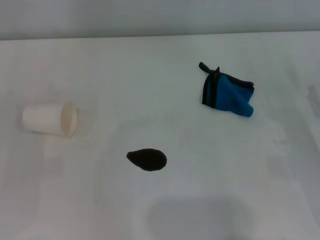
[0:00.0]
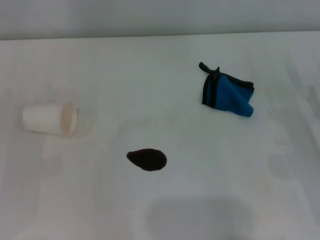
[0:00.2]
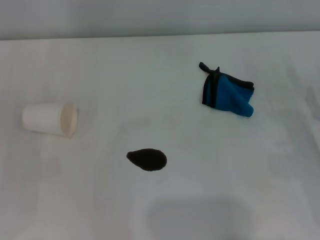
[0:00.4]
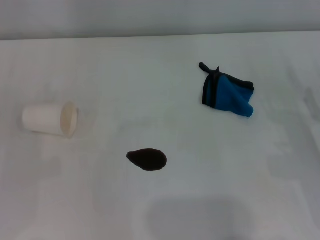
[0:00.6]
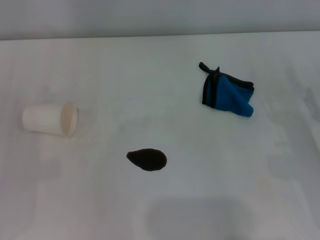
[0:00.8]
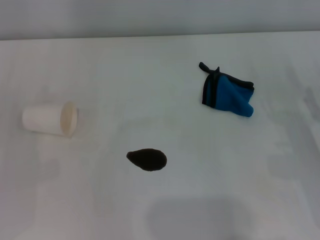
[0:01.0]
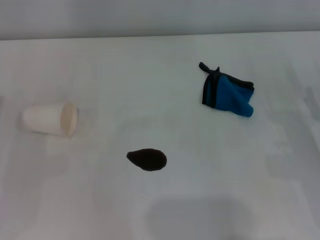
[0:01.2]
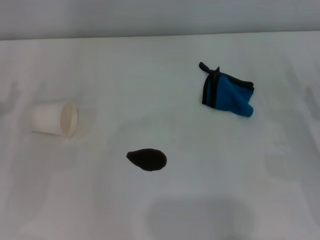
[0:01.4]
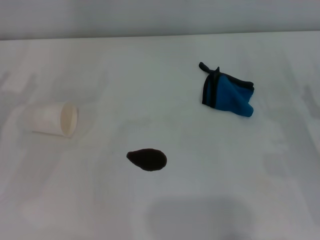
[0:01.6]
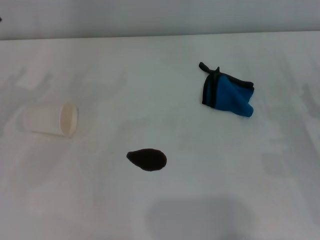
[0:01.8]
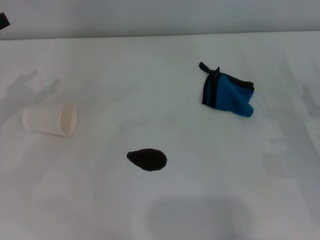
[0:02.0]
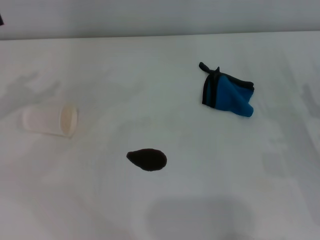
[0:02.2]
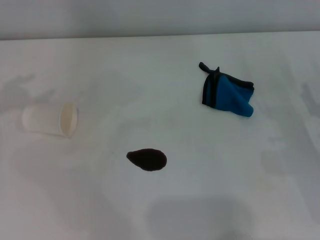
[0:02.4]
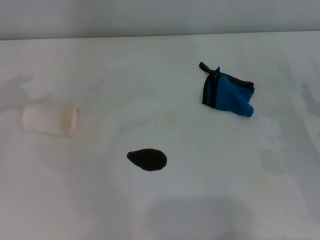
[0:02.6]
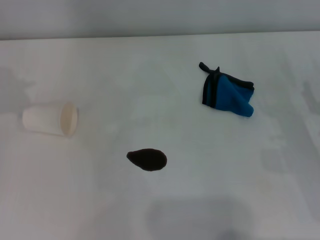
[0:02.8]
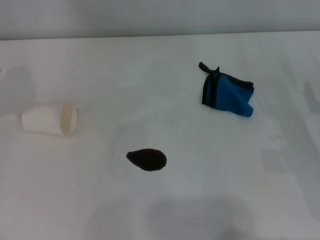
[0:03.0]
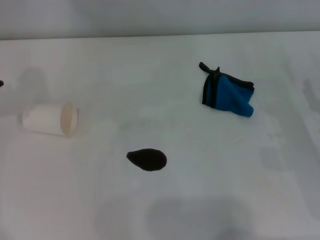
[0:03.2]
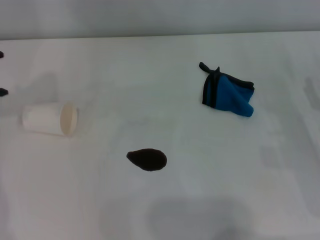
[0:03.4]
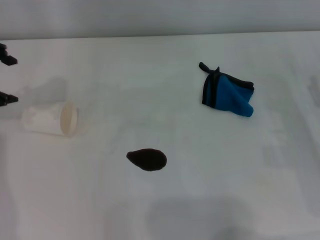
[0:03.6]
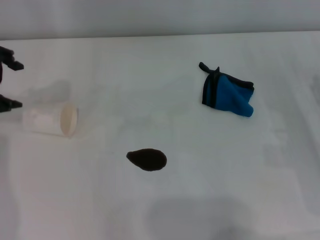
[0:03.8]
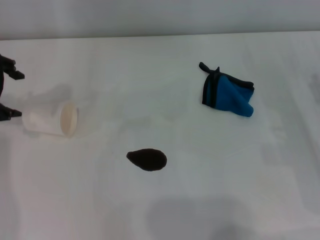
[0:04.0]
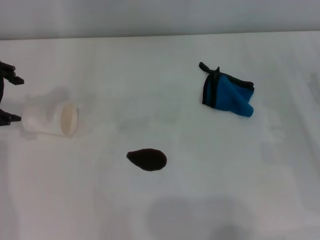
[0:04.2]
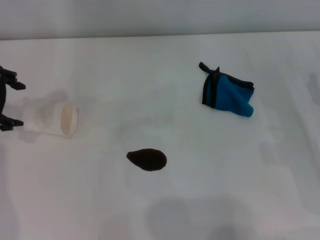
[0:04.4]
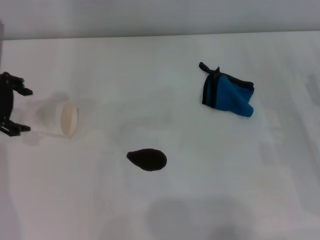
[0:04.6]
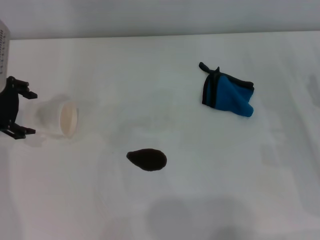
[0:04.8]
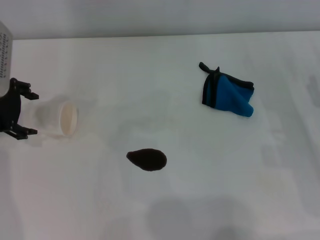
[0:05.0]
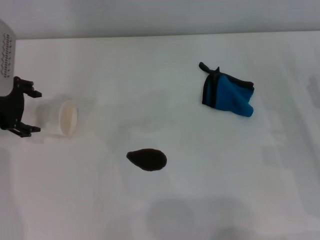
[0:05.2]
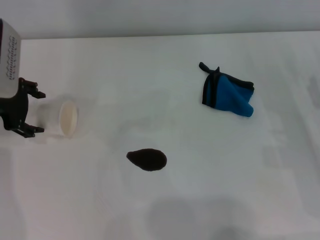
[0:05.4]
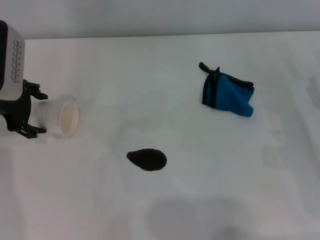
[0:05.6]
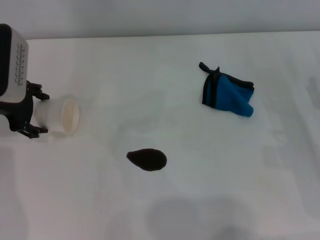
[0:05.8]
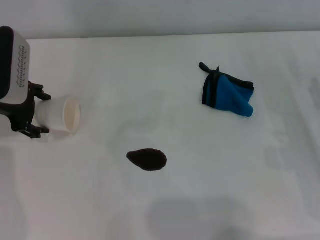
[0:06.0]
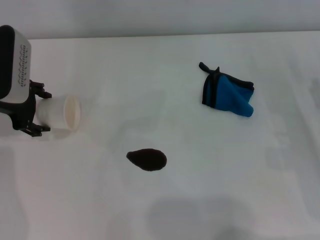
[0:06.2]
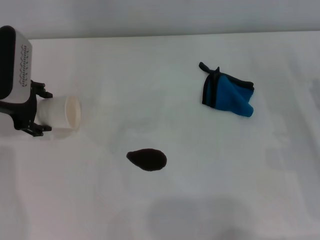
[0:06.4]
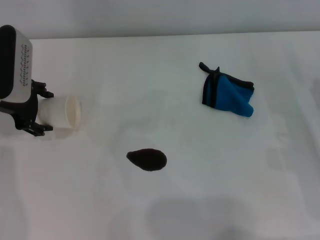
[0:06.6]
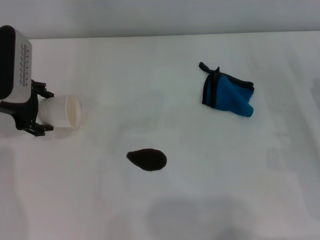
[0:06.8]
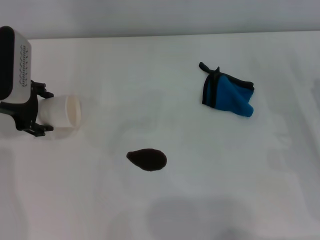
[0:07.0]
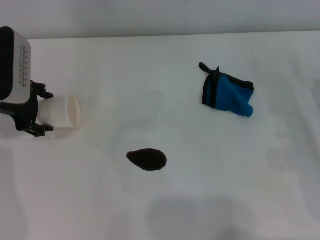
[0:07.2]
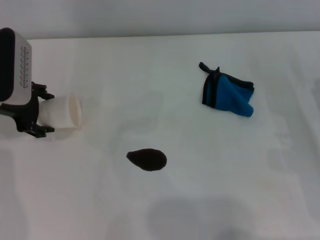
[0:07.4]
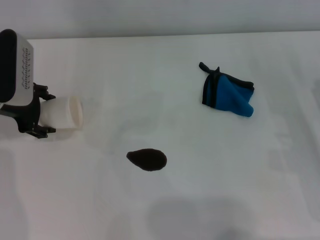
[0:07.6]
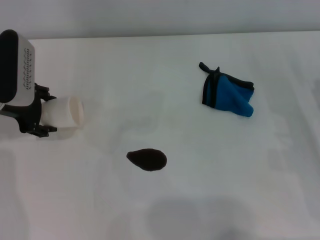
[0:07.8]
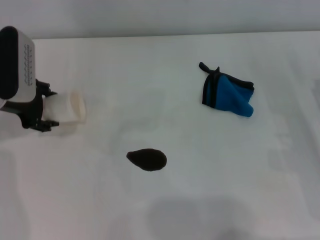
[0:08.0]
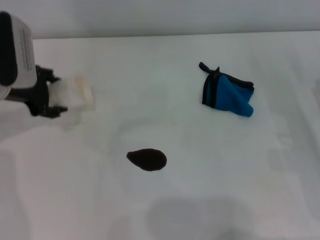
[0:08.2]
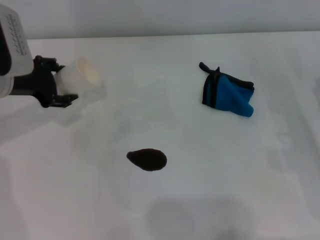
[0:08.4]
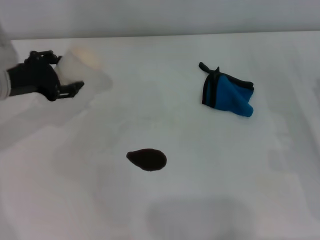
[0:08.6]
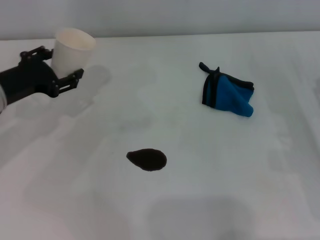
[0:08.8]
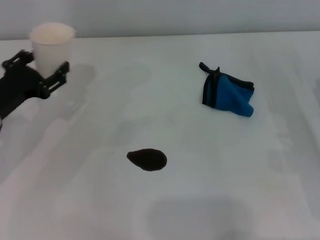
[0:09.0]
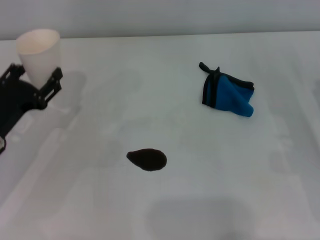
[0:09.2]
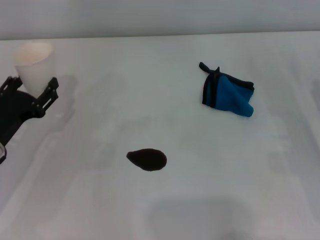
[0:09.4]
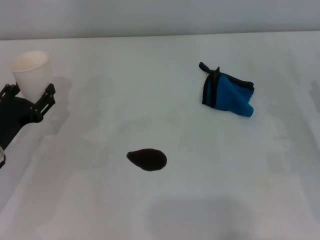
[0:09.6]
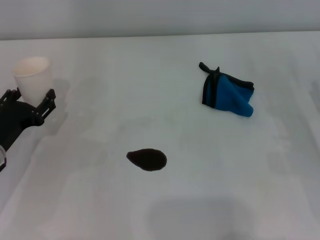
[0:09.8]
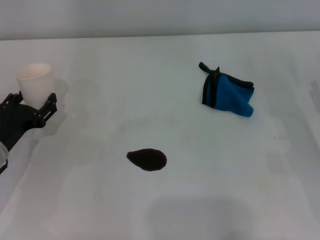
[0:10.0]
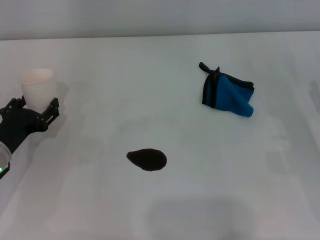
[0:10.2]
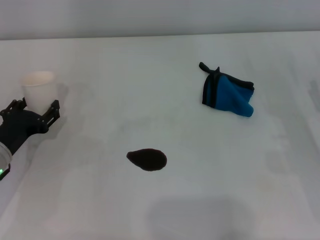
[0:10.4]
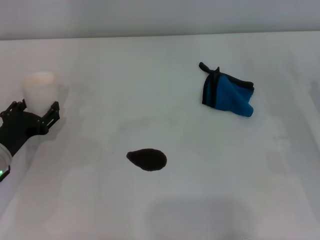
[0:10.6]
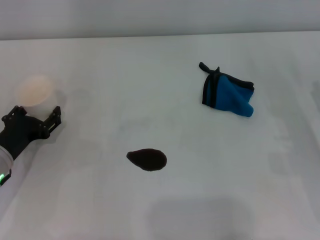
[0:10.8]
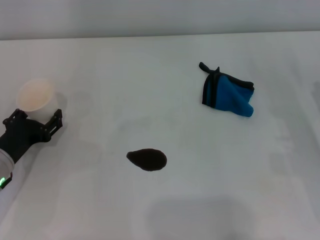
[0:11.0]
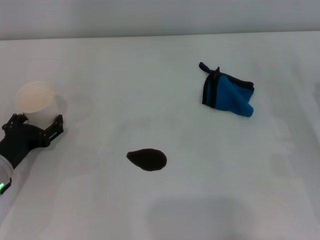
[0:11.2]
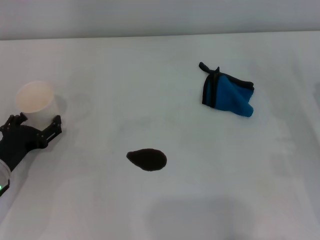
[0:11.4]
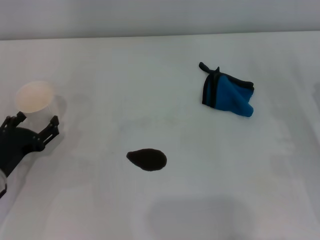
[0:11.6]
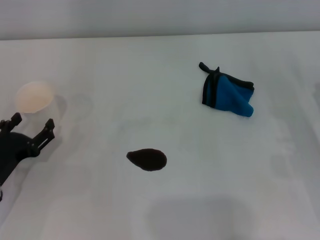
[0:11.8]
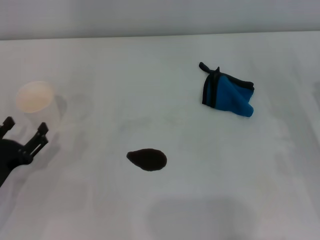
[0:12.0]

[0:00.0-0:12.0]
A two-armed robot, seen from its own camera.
Step, 0:00.0 to 0:07.8: Grasp the paper cup with the left gripper.
Step, 0:08.0 to 0:11.4: Stand the paper cup upright with the left gripper.
0:03.0 to 0:04.4: The left gripper heads downward and to the right, covering about 10 cm.
0:04.4 to 0:06.0: The left gripper goes approximately 5 cm downward.
0:06.0 to 0:07.6: The two grippers keep their place.
0:07.6 to 0:09.0: The left gripper is displaced backward and downward by approximately 10 cm, and closes up.
0:09.0 to 0:10.4: The left gripper travels downward by approximately 5 cm.
0:10.4 to 0:12.0: The left gripper travels backward by about 5 cm, and opens.

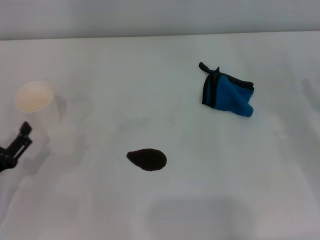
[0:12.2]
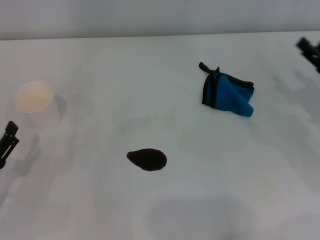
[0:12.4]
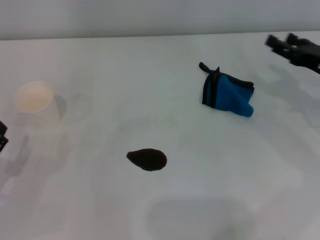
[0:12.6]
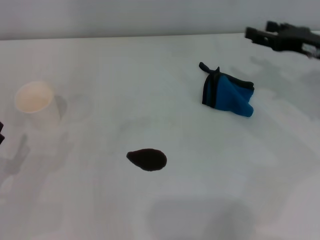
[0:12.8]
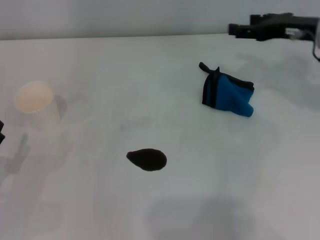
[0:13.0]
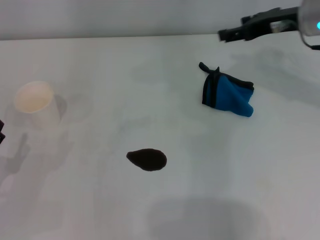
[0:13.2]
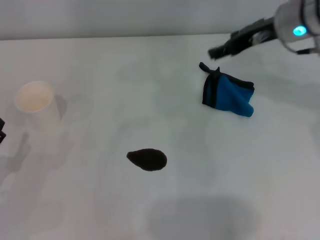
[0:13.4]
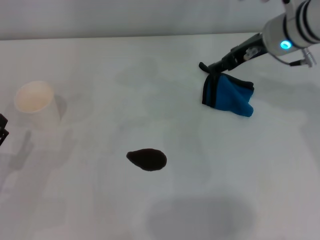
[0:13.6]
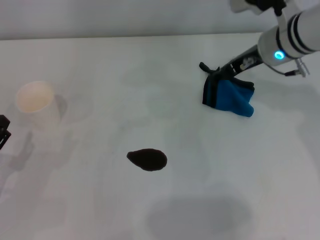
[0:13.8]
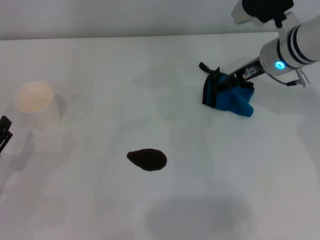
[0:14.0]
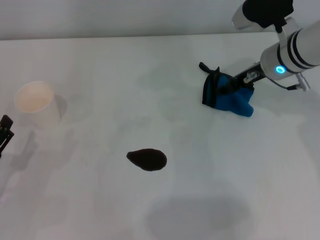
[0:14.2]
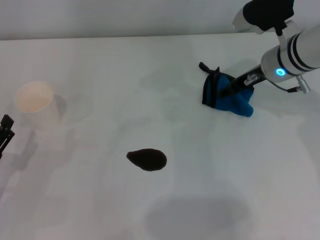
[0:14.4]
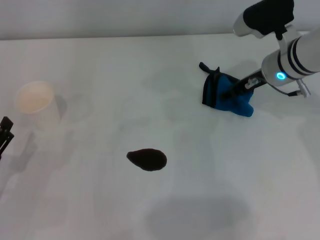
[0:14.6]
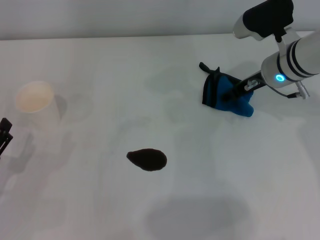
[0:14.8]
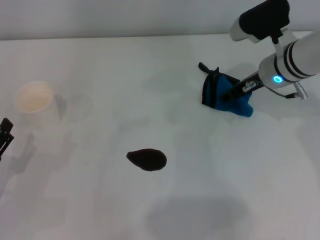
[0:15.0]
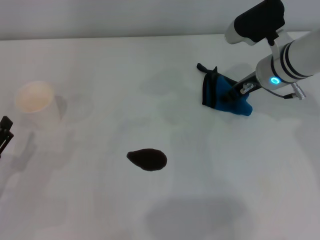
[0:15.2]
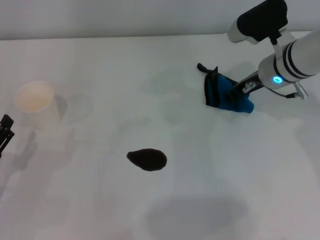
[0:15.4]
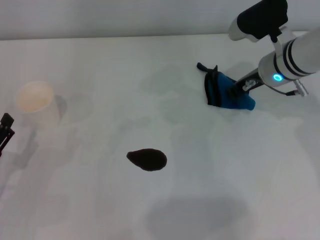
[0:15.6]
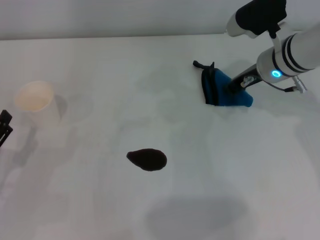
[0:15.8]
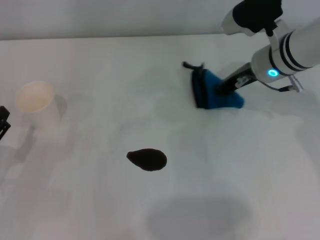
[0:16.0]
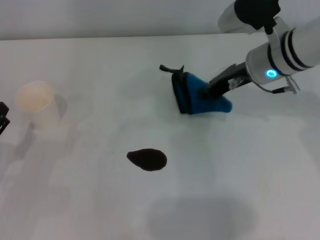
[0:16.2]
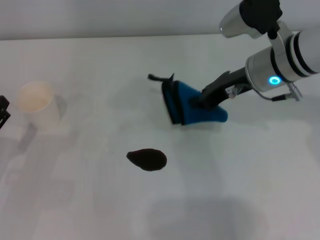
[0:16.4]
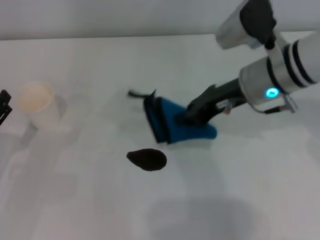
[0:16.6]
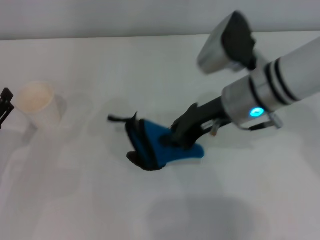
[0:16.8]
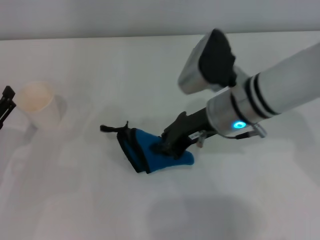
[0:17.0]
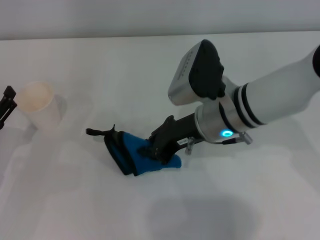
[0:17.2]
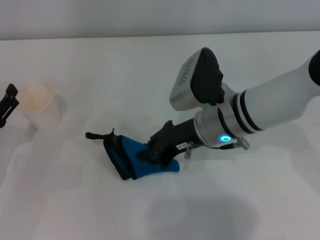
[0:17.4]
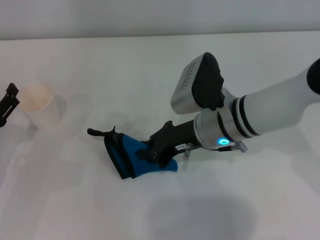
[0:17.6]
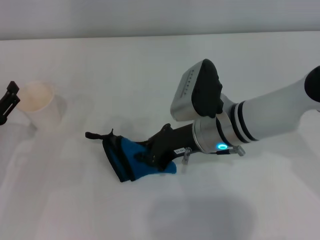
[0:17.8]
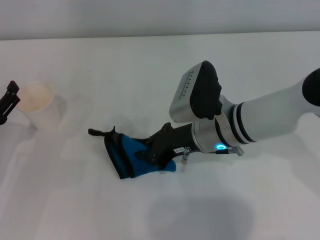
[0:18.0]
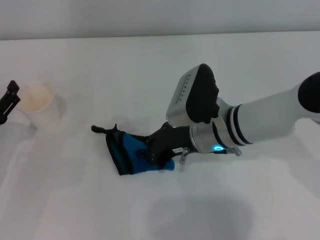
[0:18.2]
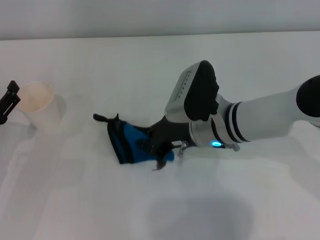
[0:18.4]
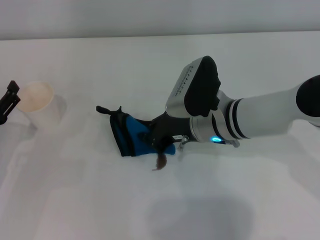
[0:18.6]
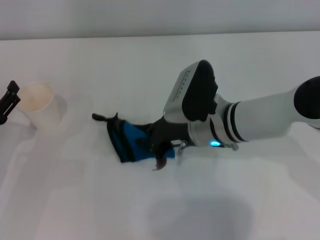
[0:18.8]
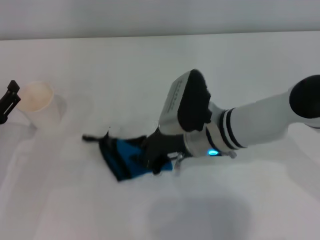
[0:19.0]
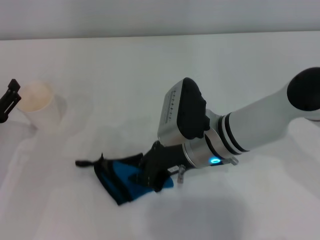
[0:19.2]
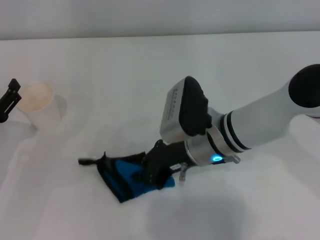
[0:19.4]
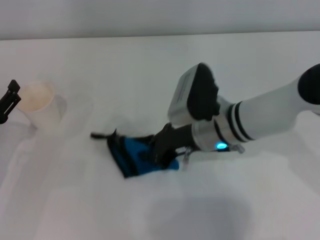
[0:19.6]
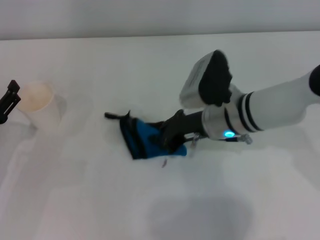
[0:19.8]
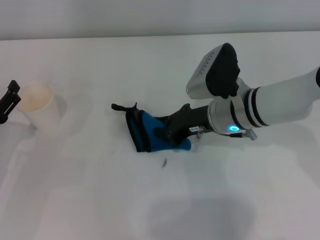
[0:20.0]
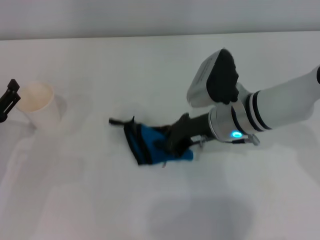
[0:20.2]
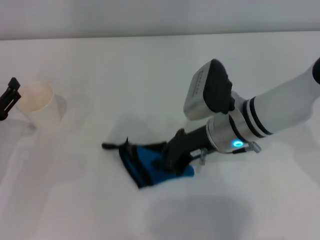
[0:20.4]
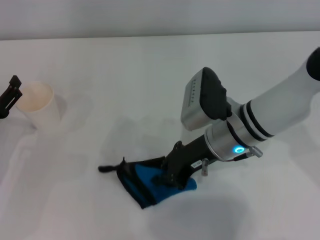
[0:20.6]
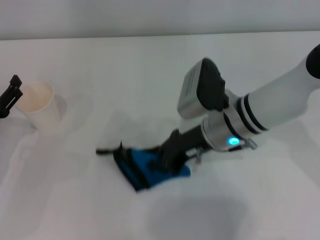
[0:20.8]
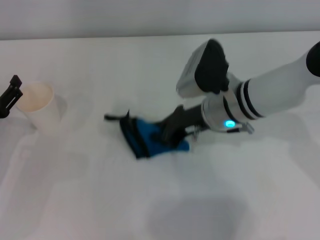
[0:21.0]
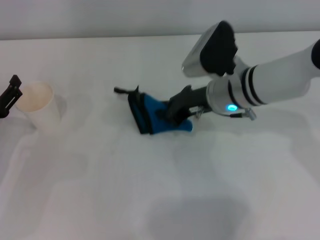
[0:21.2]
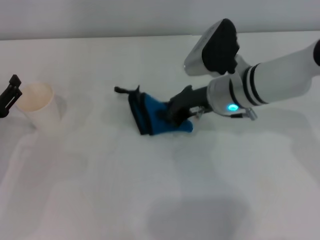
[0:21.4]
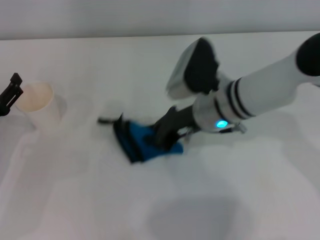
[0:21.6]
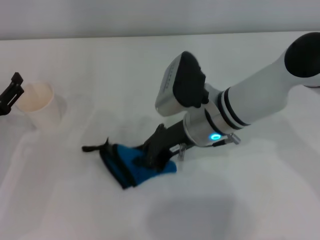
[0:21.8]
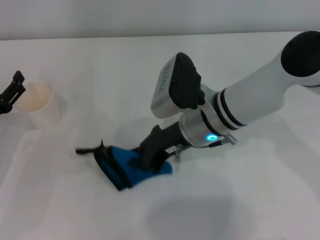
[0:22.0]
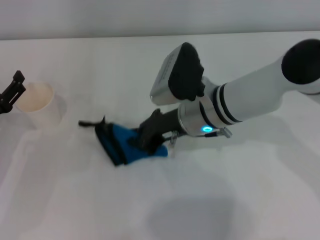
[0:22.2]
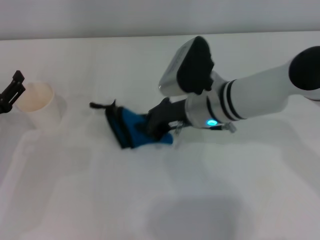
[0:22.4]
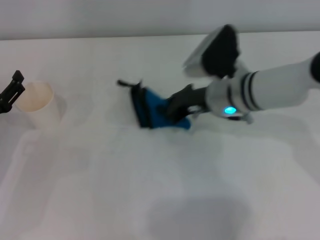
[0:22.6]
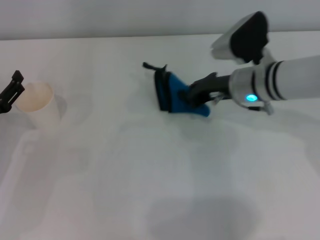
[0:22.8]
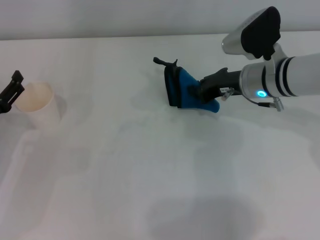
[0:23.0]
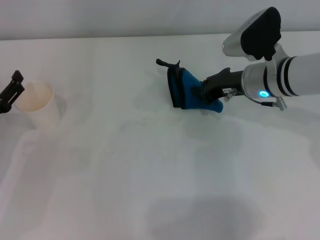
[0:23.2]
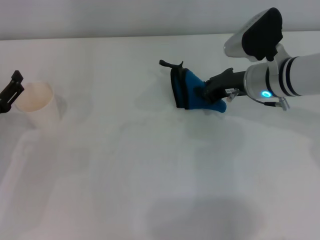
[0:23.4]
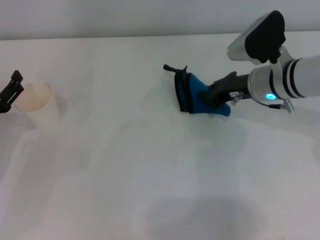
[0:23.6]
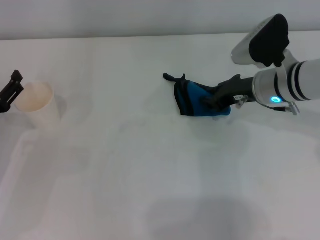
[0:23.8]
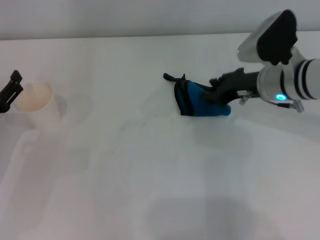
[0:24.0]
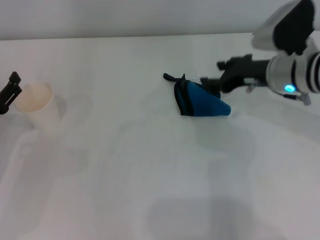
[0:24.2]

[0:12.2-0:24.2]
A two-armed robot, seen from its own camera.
Step, 0:12.2 to 0:15.4: Grasp the rag with the right gripper.
Step, 0:15.6 to 0:23.0: Wipe the stains off the table with the right gripper.
Step, 0:23.2 to 0:23.8: Place the rag on the table with the right gripper.
0:12.2 to 0:13.8: The right gripper moves forward, to the left and upward, approximately 25 cm.
0:13.8 to 0:15.2: There are only small adjustments of the grippers.
0:15.2 to 0:16.6: The right gripper goes roughly 5 cm backward and upward, and closes up.
0:16.6 to 0:18.2: The right gripper goes some 10 cm downward and to the left.
0:18.2 to 0:19.8: The grippers move only a little.
0:19.8 to 0:21.2: There are only small adjustments of the grippers.
0:22.6 to 0:24.2: The right gripper travels to the right by some 10 cm, and opens.
